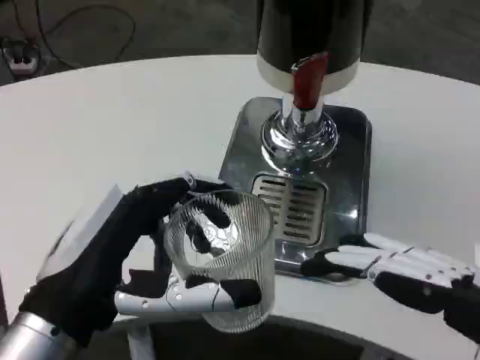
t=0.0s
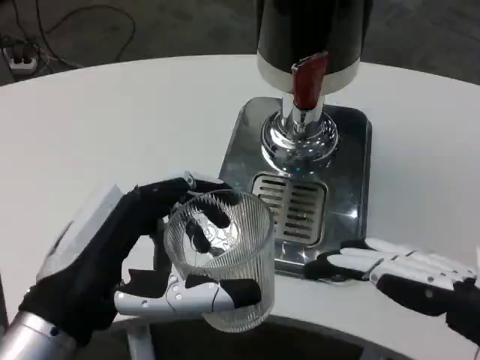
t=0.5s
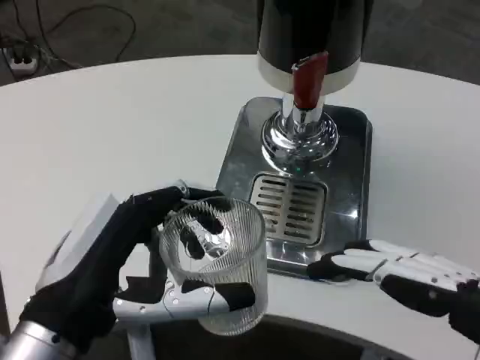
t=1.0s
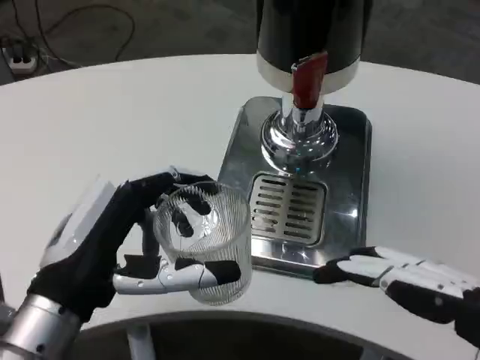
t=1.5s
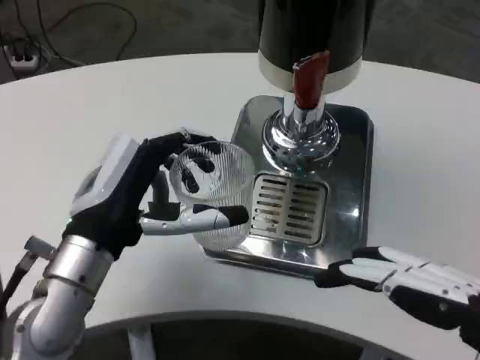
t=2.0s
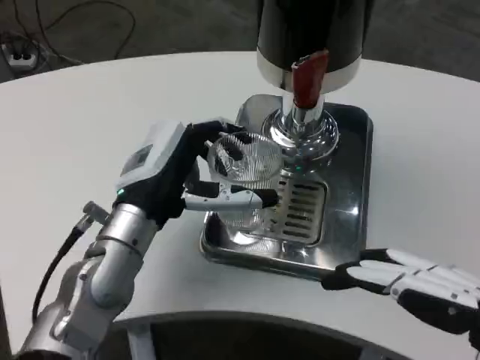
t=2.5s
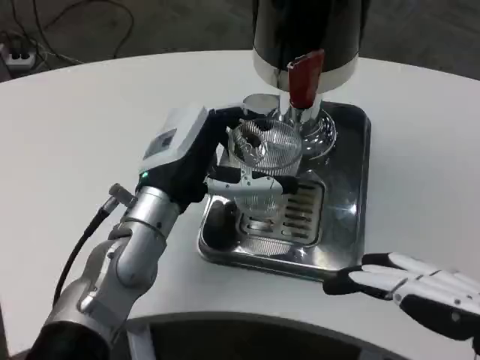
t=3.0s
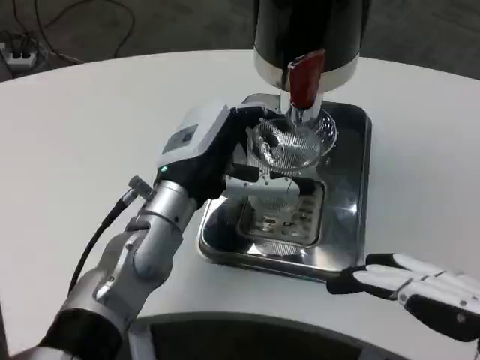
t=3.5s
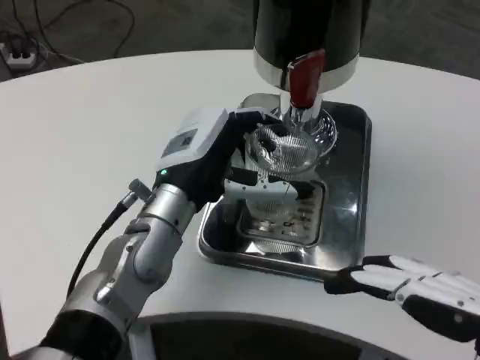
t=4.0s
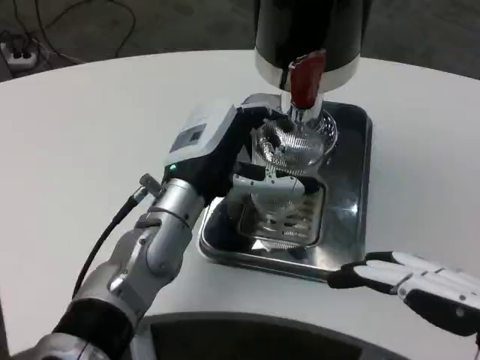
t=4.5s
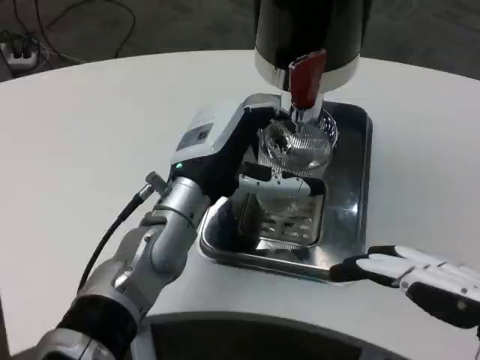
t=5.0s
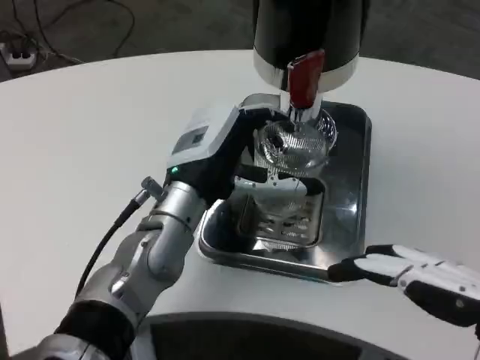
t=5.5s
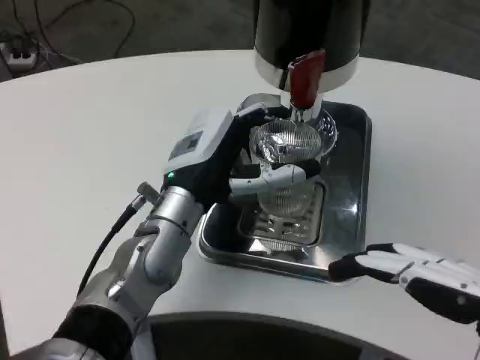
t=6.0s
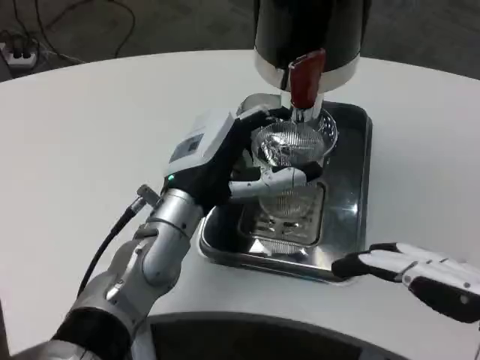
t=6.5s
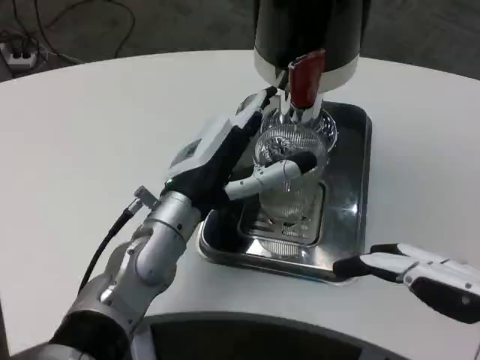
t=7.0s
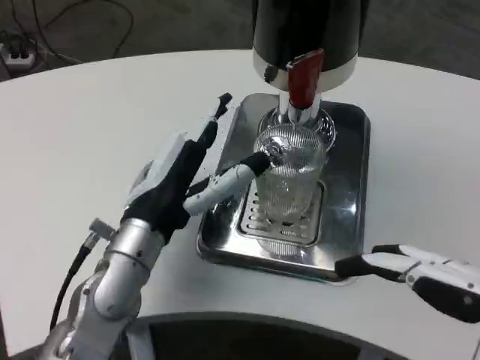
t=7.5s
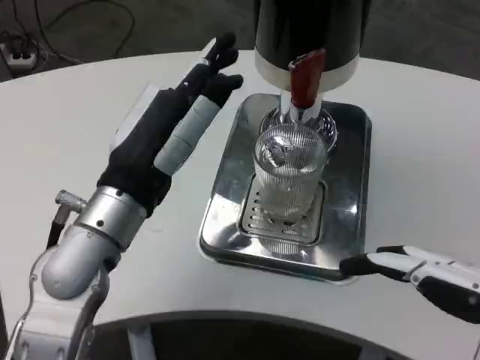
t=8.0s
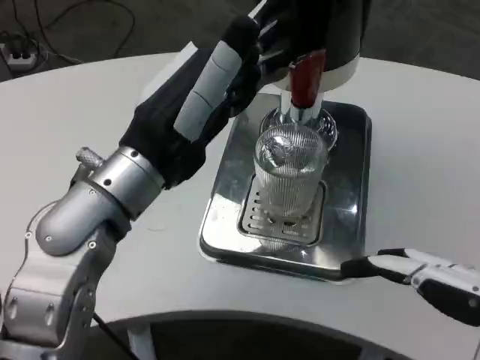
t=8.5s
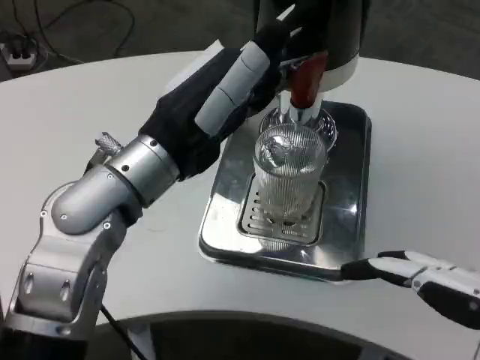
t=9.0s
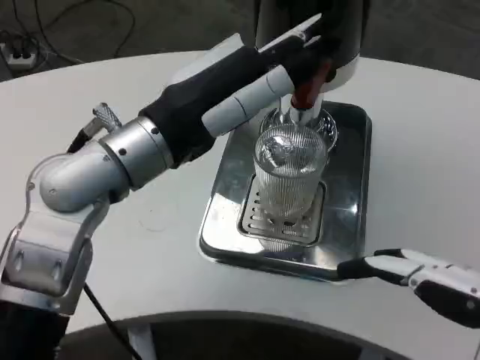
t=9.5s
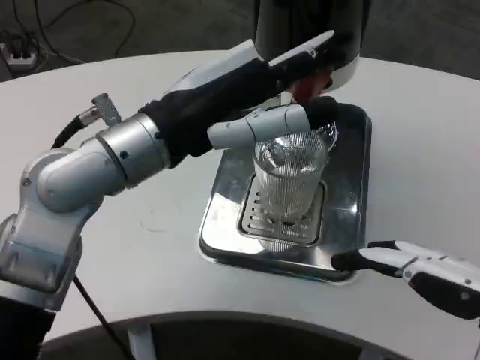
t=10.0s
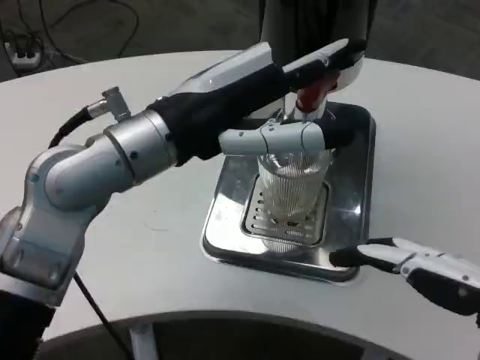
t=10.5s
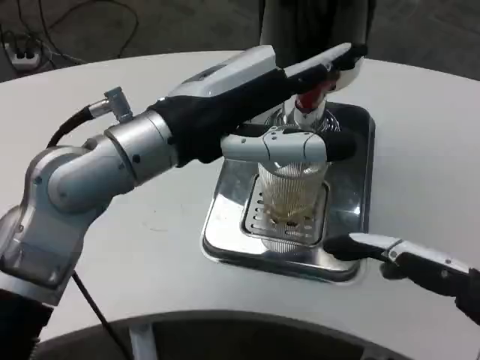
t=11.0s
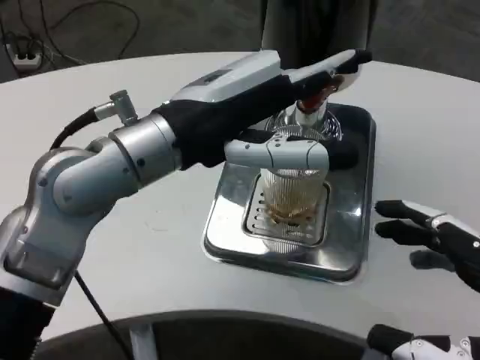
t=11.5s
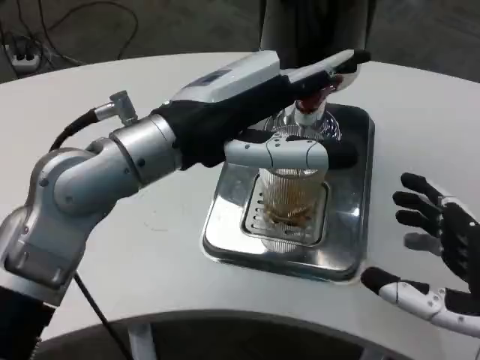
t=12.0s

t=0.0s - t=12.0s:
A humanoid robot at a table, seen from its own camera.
Task of the whole recording: Grasp the cup under the faucet to collect the drink, then remove the cup.
t=0.0s - t=2.0s: The left hand shifts some 10 cm forward.
t=2.0s - t=4.0s: The left hand goes some 10 cm forward and to the right.
t=4.0s - t=6.0s: The hands make only small movements.
t=6.0s - t=8.0s: The left hand goes approximately 5 cm backward.
t=8.0s - t=10.0s: The left hand is displaced upward by about 10 cm.
t=10.0s - t=12.0s: The right hand is displaced downward and forward by approximately 15 cm.

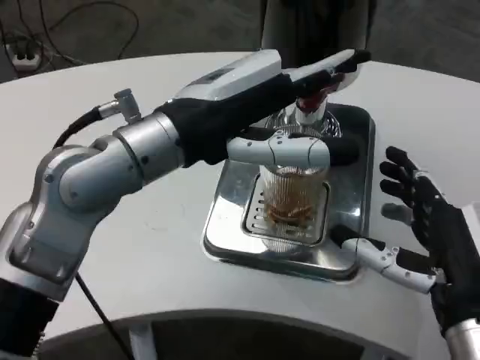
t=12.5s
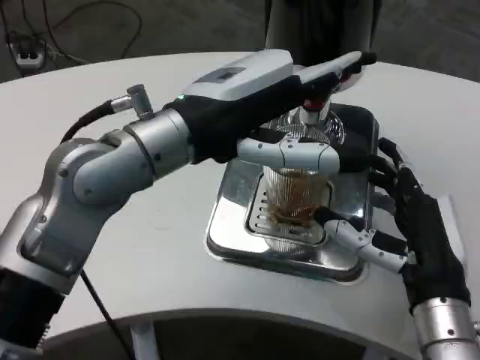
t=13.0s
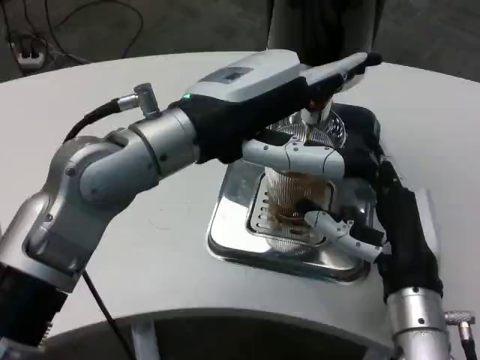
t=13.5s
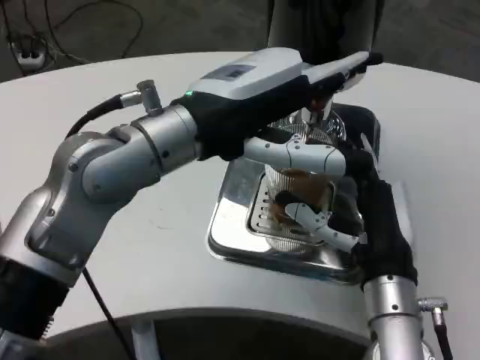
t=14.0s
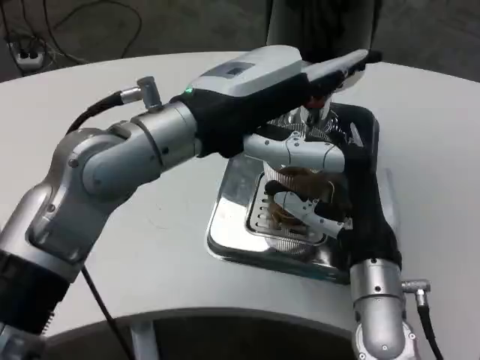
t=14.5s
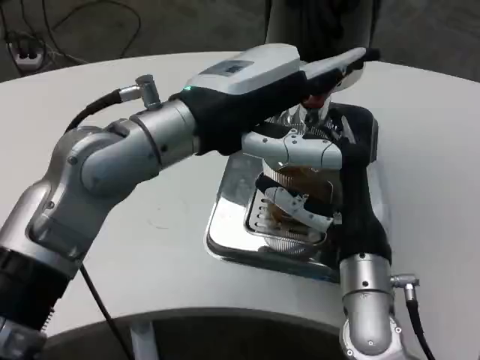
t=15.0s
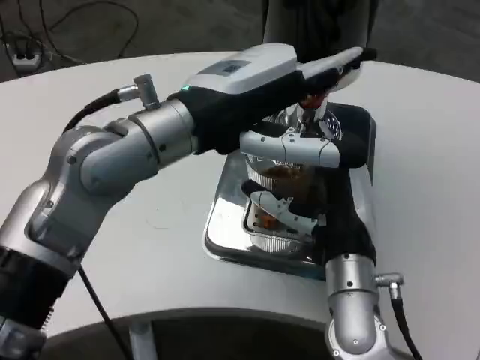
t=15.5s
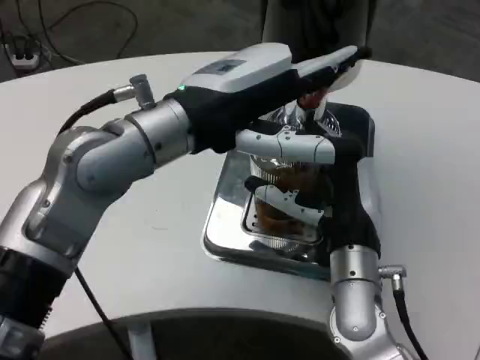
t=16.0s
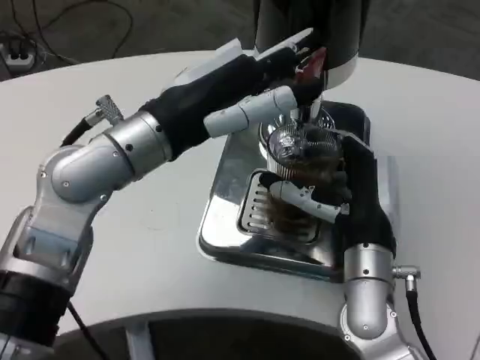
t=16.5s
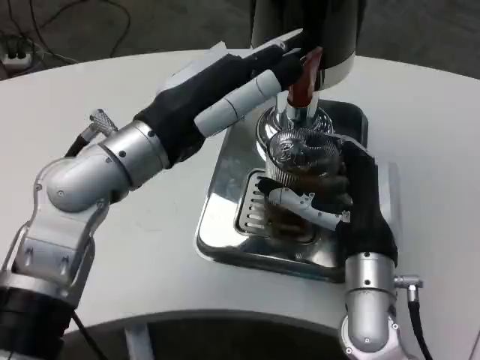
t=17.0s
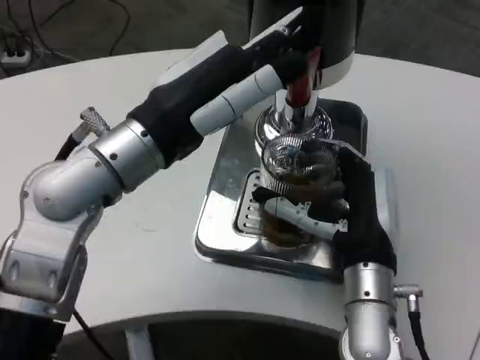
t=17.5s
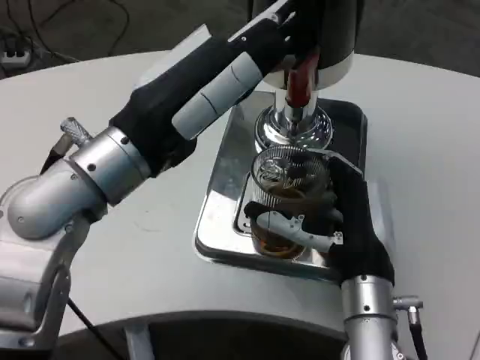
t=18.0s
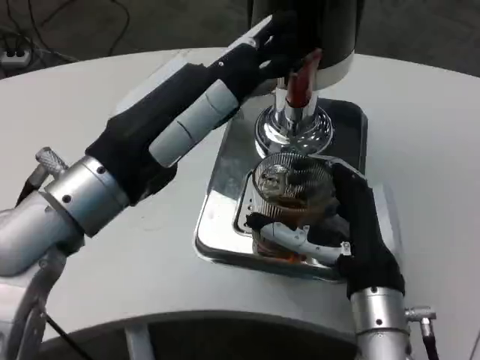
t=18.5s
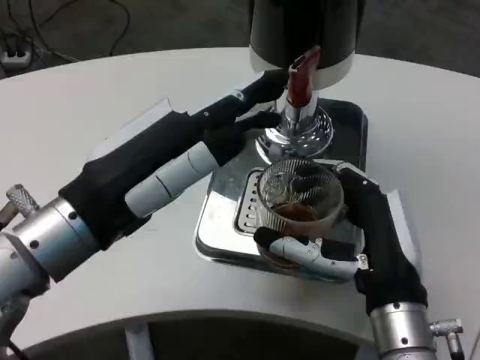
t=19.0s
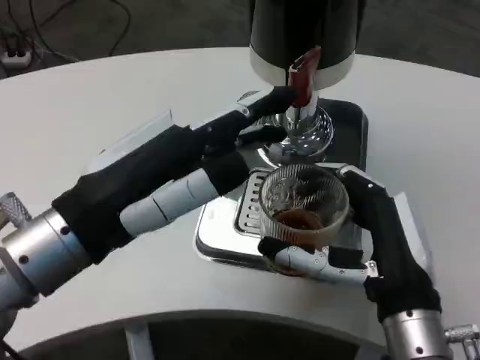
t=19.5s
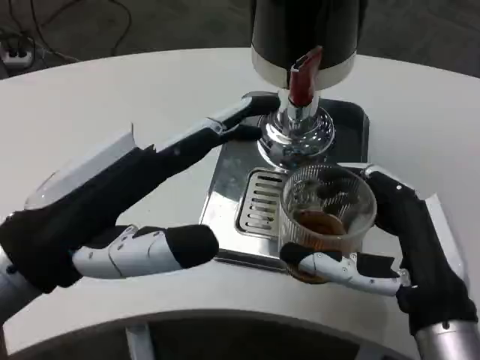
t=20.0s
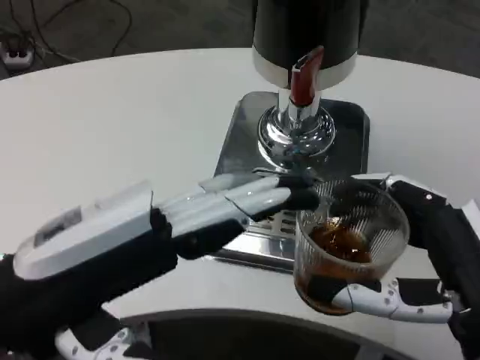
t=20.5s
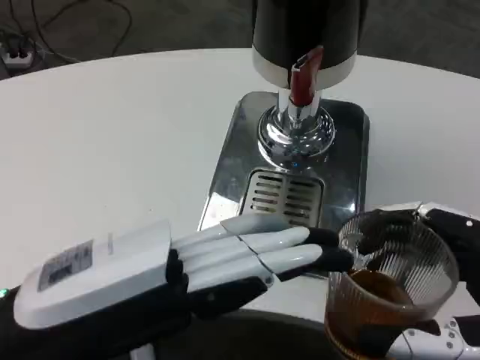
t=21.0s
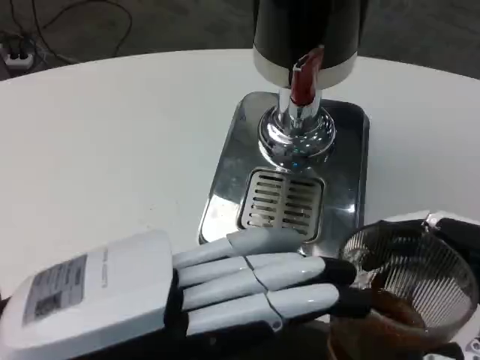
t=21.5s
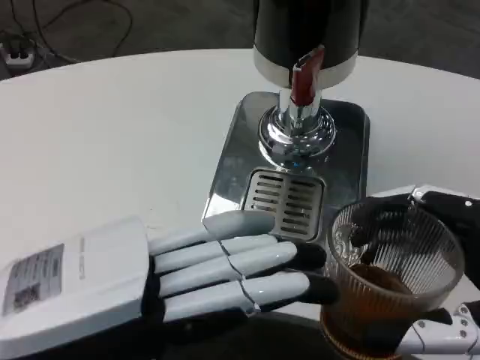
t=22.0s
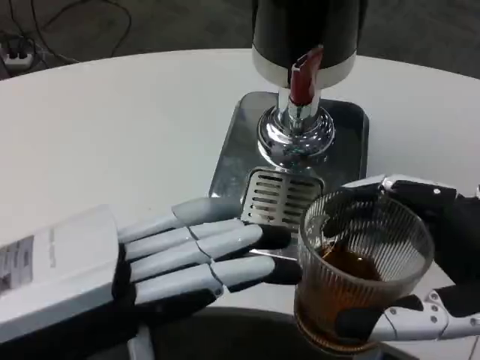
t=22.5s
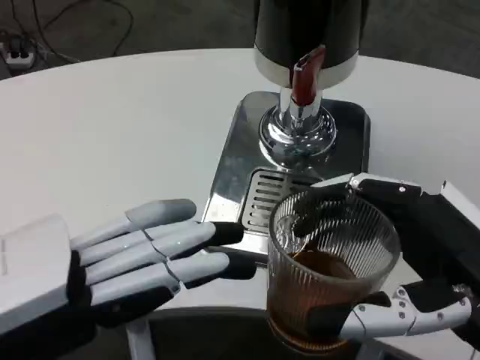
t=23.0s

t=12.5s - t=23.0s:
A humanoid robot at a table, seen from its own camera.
Task of the whole recording: Grasp the cup under the faucet to collect the drink, then remove the cup.
t=12.5s - t=14.5s: The right hand travels forward and to the left by about 10 cm.
t=16.5s - t=19.0s: The two hands go about 10 cm backward.
t=19.0s - t=21.0s: The right hand shifts approximately 15 cm backward, to the right and upward, while the left hand travels backward by about 10 cm.
t=21.0s - t=23.0s: The left hand changes place by some 5 cm.

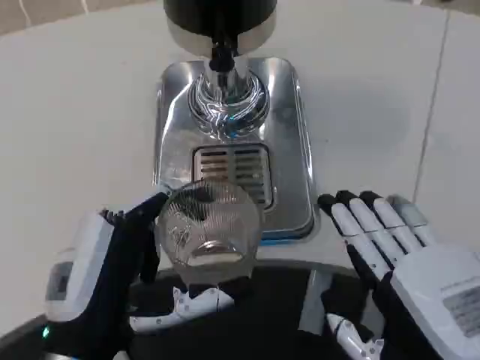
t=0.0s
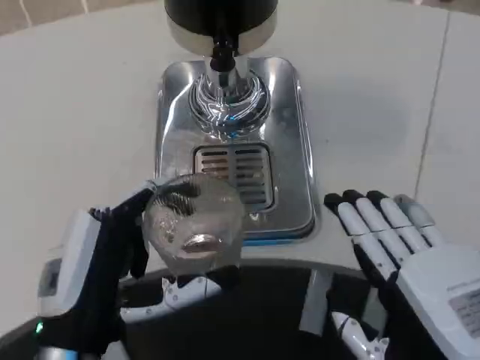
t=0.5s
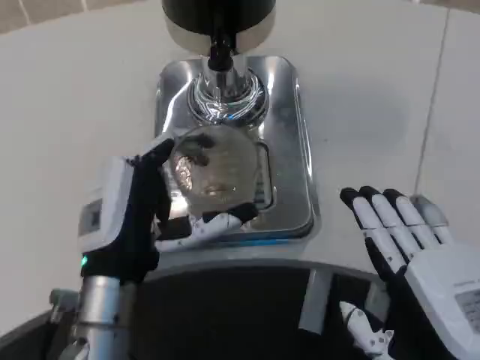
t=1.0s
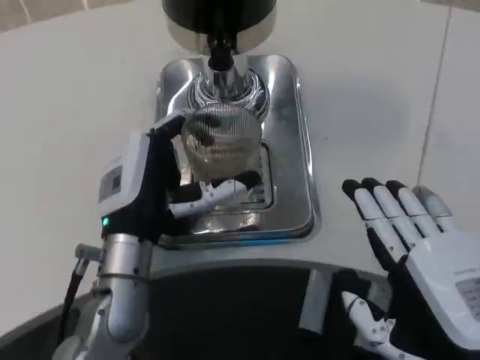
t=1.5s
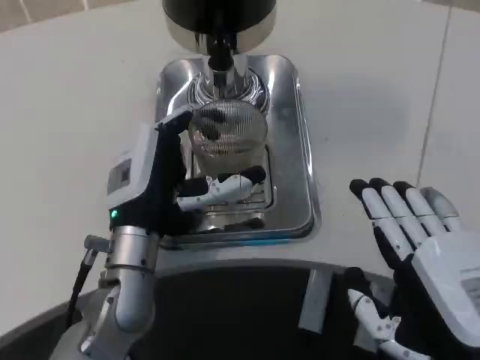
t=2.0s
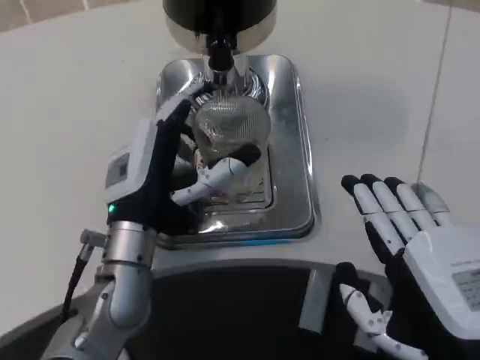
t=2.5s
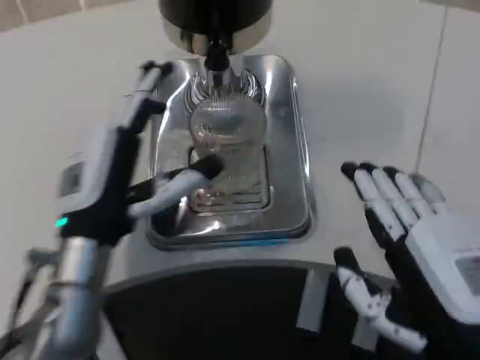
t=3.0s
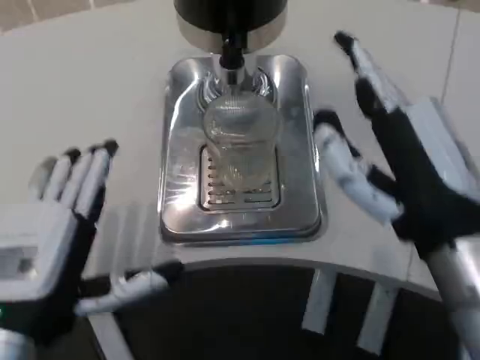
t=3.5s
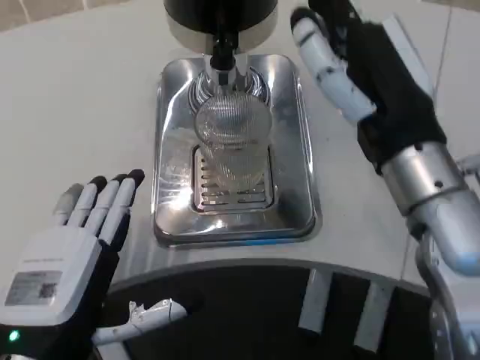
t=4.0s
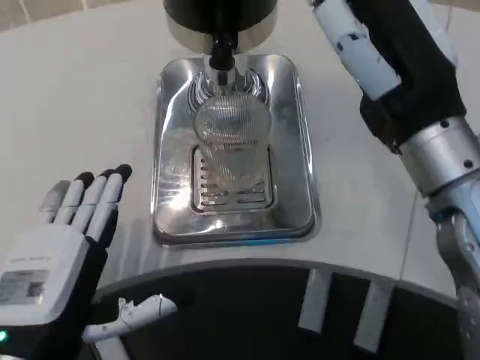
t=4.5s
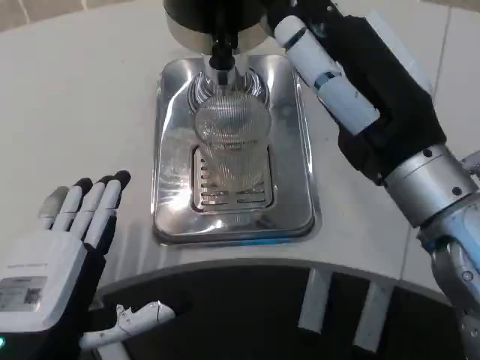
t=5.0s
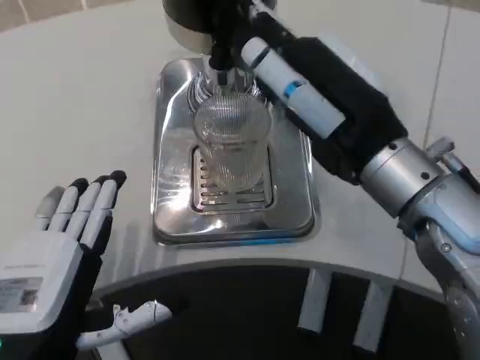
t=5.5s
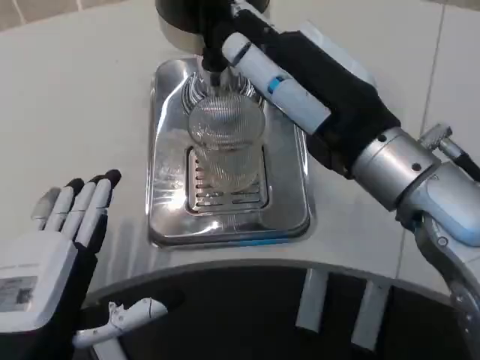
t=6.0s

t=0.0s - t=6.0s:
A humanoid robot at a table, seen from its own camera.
Task of the whole recording: Grasp the cup under the faucet to collect the drink, then remove the cup.
t=0.0s - t=2.0s: The left hand moves forward, about 15 cm.
t=2.0s - t=4.0s: The left hand heads backward and to the left, covering roughly 15 cm. Meanwhile the right hand travels forward, upward and to the left by some 15 cm.
